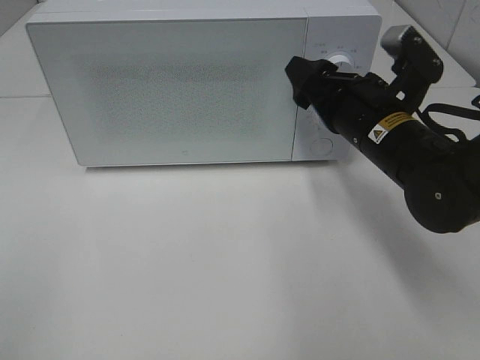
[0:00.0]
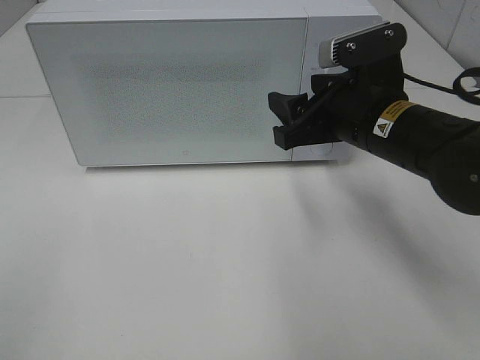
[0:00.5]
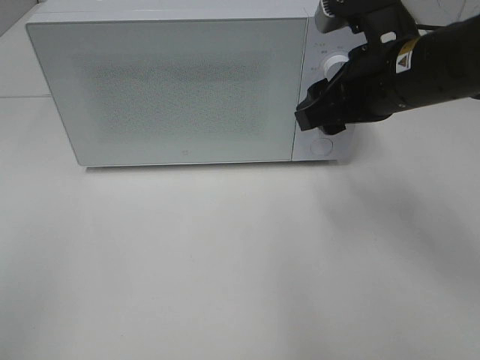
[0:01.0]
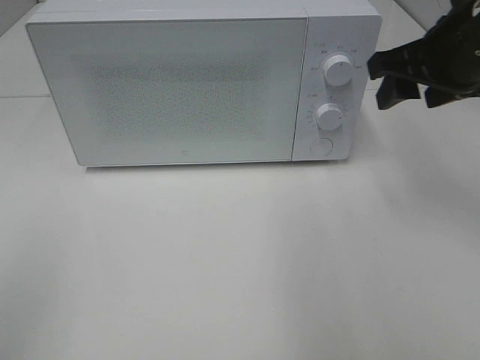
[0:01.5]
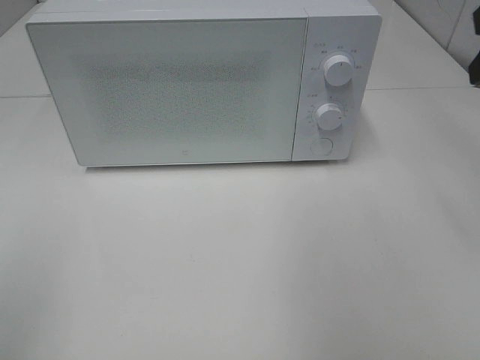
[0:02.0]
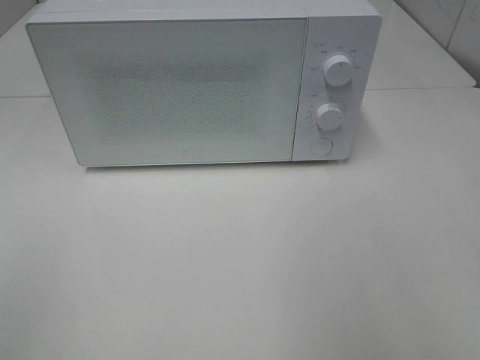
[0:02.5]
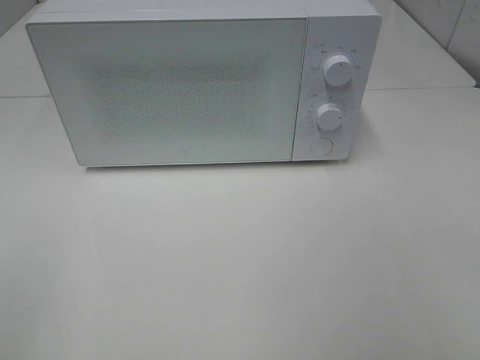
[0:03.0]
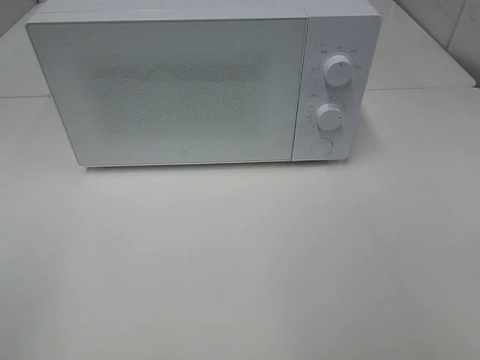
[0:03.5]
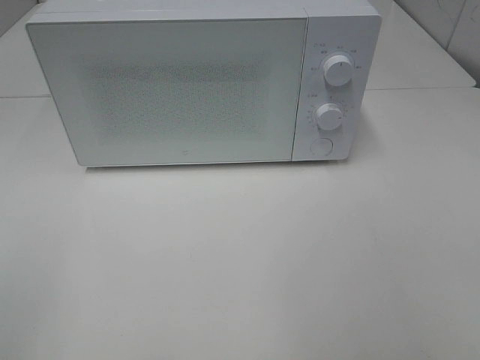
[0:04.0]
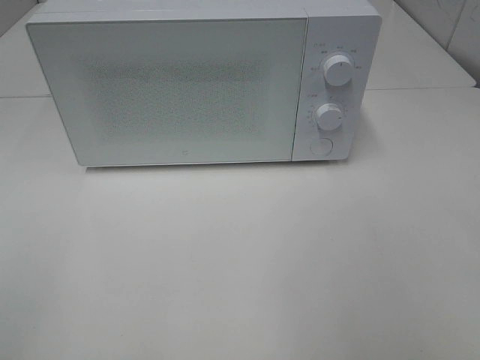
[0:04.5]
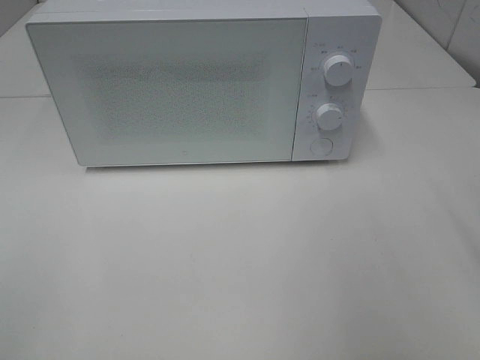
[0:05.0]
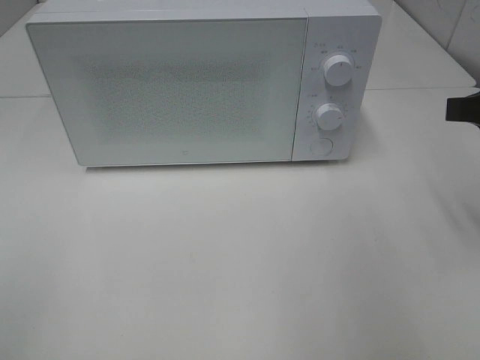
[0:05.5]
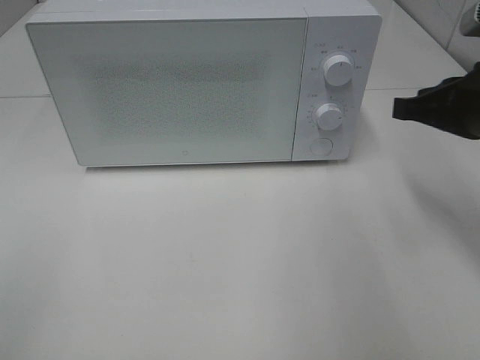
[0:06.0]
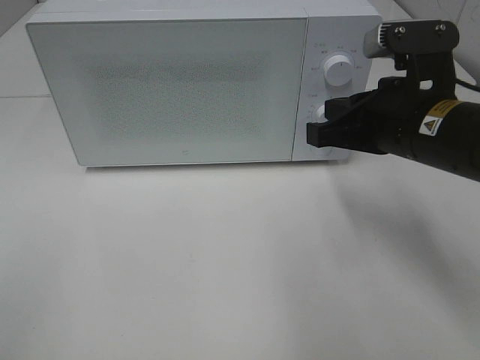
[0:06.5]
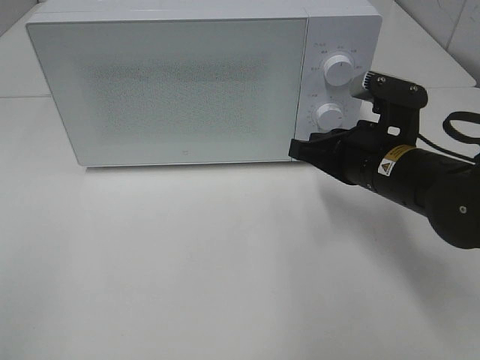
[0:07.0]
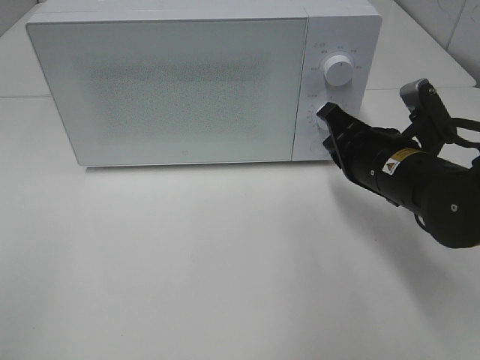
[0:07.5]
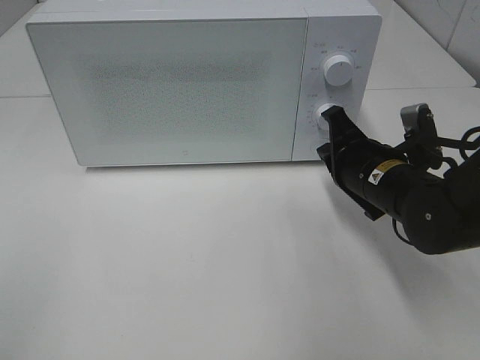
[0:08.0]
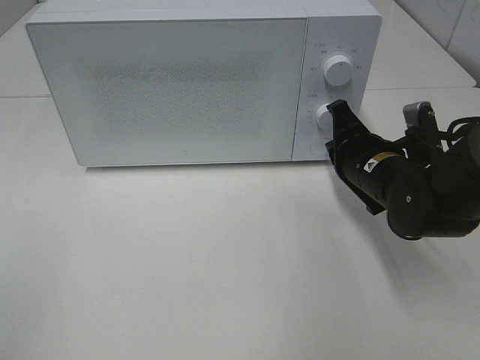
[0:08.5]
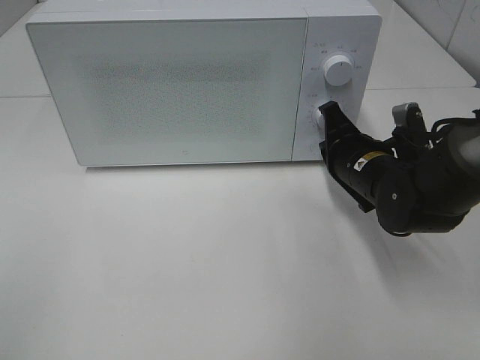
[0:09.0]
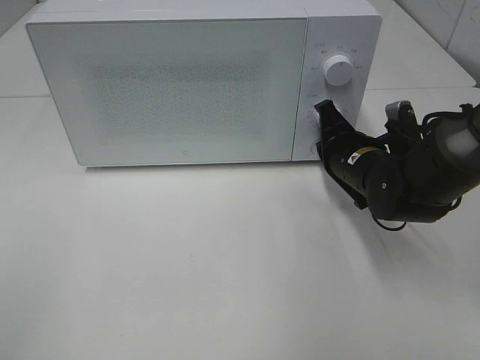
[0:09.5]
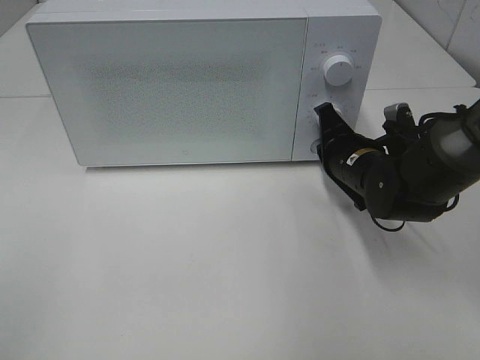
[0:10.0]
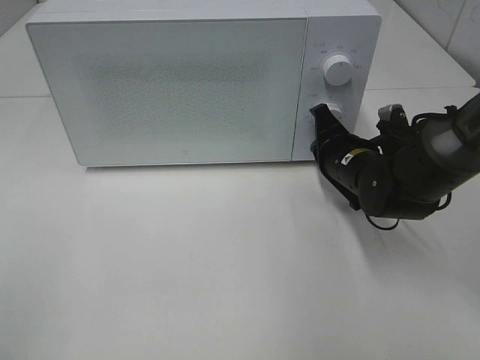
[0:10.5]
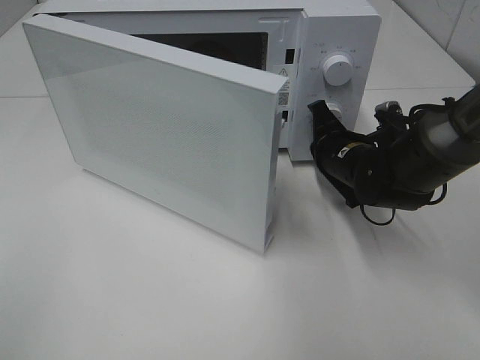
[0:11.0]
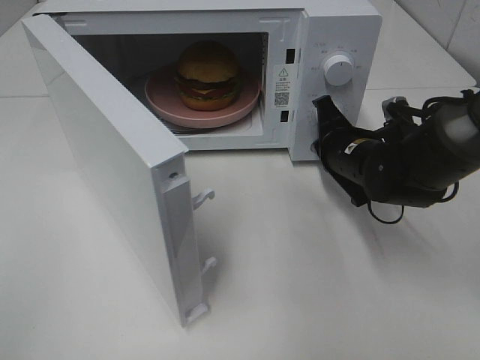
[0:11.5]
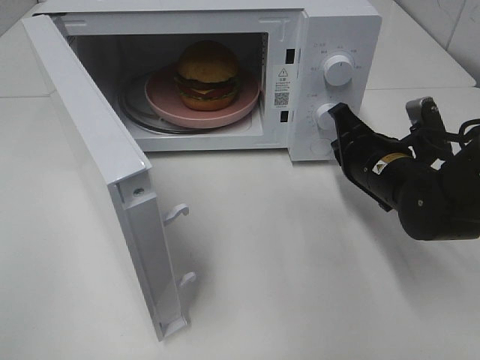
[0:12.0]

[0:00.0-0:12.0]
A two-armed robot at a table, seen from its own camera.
Task of the whole recording: Heat the burger.
Step, 0:00.0 to 0:11.5: Right hand: press the switch.
0:00.0 to 0:02.0: The right gripper shifts roughly 20 cm upward and to the right.
0:04.0 to 0:06.0: The right gripper is displaced forward by about 25 cm, and closes.
0:06.0 to 0:08.0: The right gripper is displaced downward and to the left by some 15 cm.
0:08.0 to 0:10.0: The right gripper travels forward by roughly 5 cm.

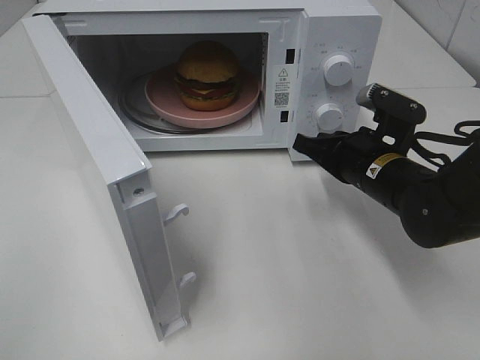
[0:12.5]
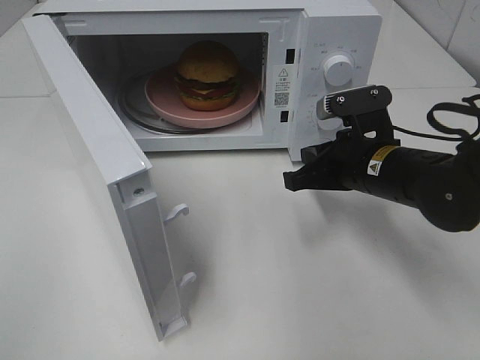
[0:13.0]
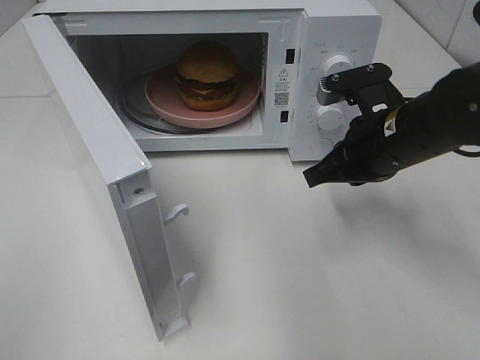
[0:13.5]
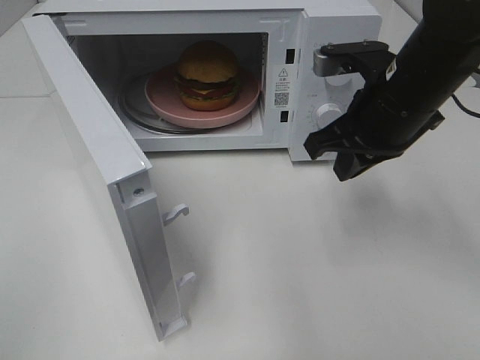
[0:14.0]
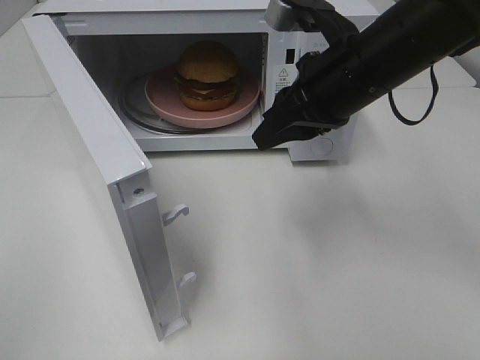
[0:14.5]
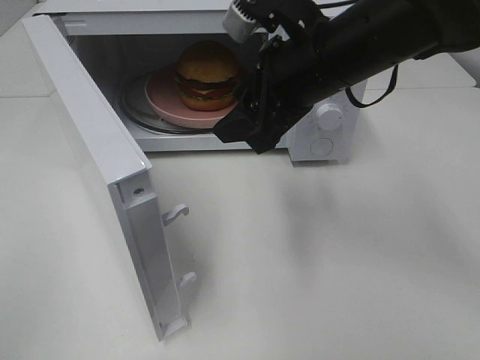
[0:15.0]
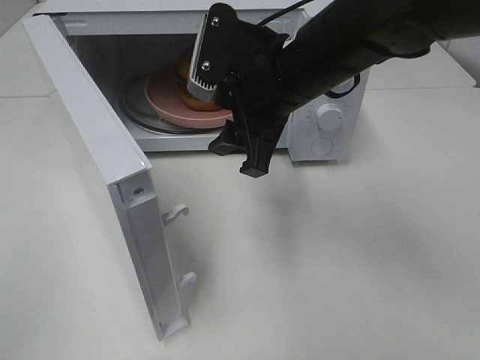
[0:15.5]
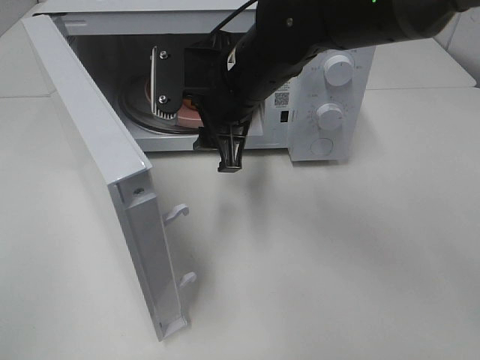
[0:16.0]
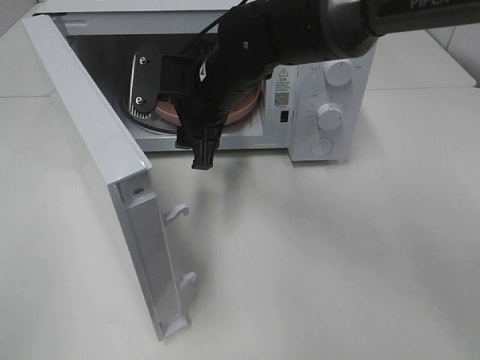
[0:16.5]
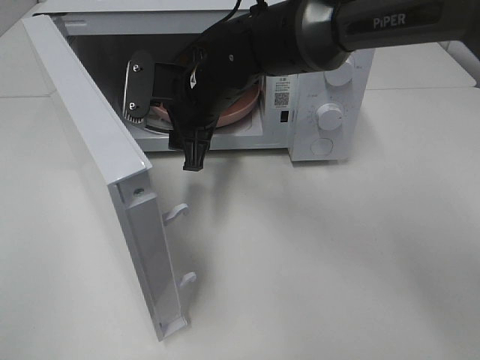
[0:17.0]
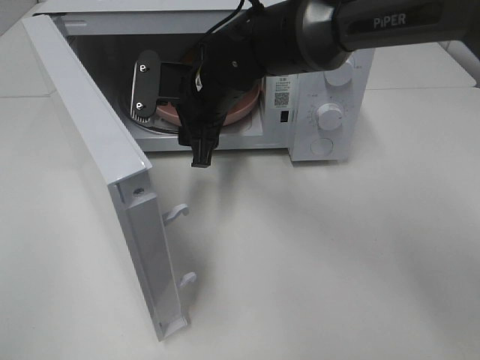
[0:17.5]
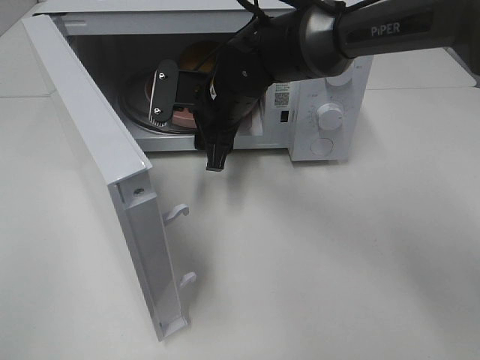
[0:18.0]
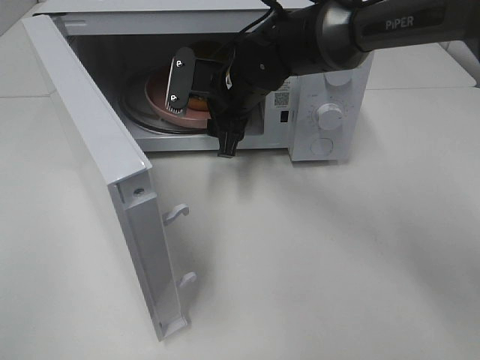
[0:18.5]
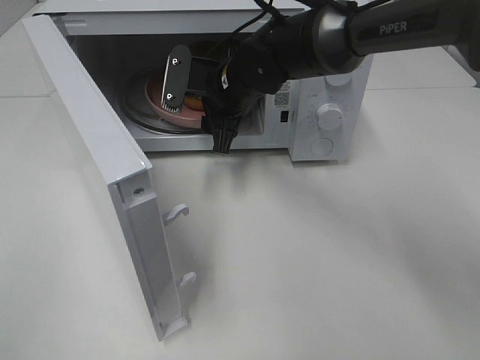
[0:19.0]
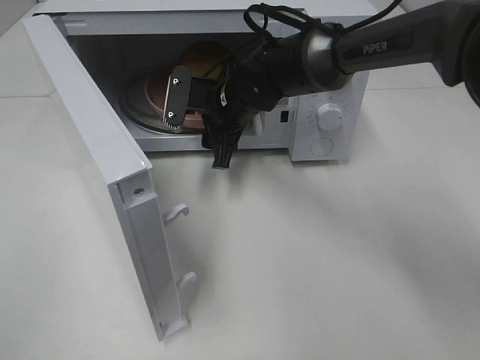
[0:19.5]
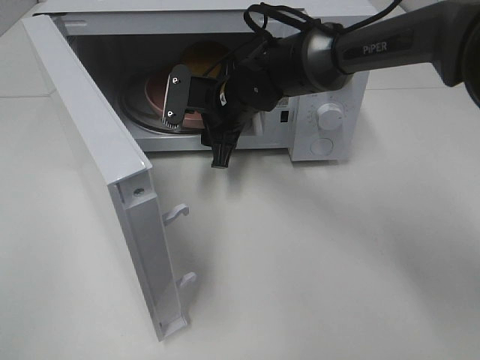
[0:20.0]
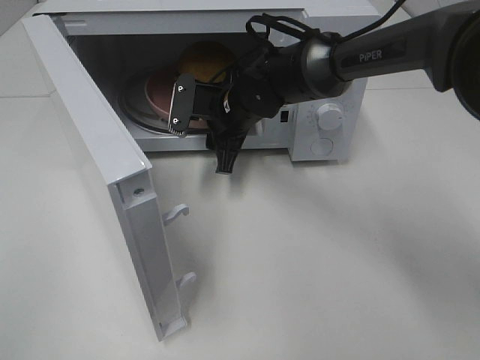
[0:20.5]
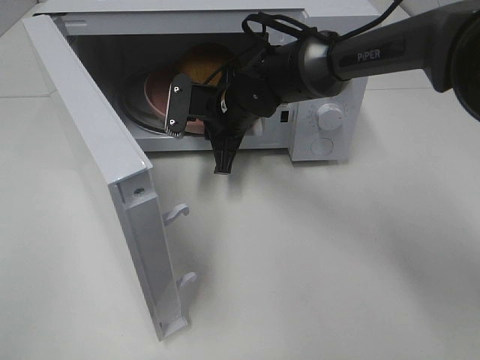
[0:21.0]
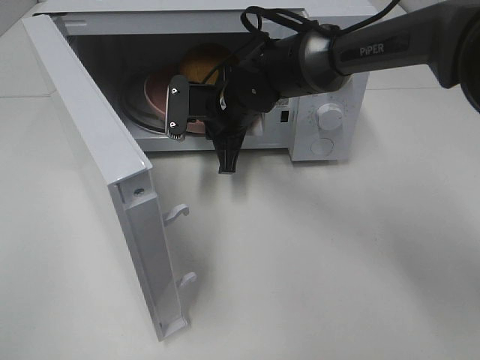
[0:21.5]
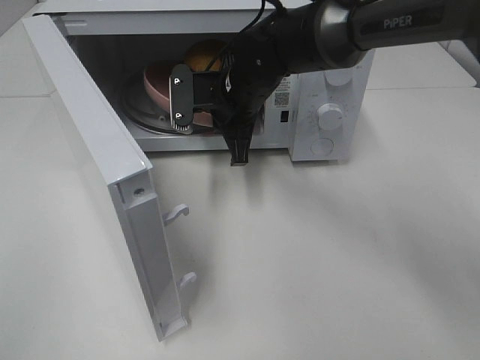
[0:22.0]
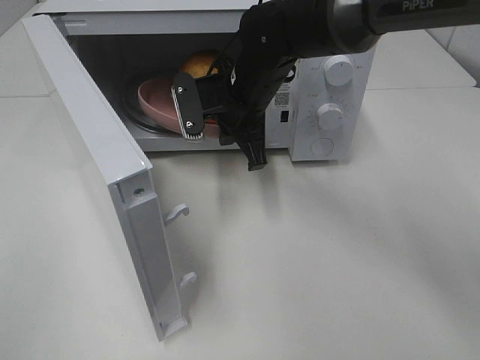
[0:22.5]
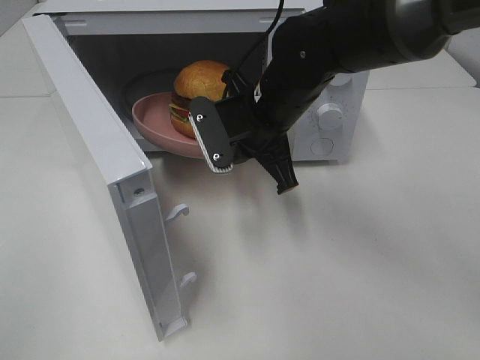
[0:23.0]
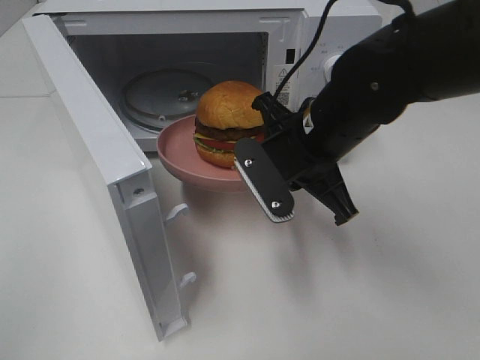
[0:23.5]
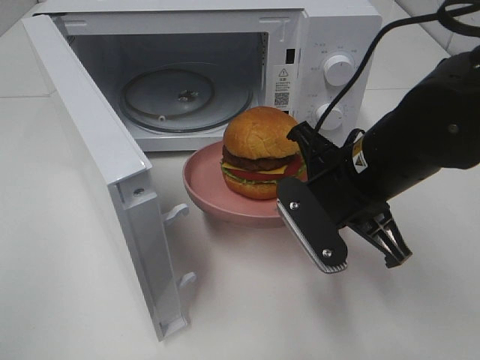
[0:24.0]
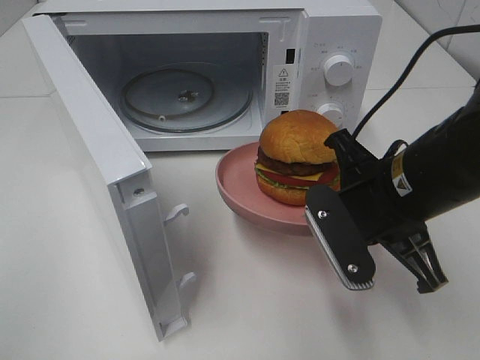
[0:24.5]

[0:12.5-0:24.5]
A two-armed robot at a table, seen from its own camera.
Task of the whole recording: Heat the burger.
Step, 0:12.5 to 0:21.5: Right hand: grab the plate with the hamburger.
0:12.5 to 0:14.5: The right gripper goes about 15 cm upward.
0:14.5 to 0:16.5: The right gripper goes some 15 cm to the left, and opens.
0:16.5 to 0:18.5: The right gripper changes place by approximately 5 cm.
0:18.5 to 0:20.5: There are only small adjustments of the grippers.
0:20.5 to 0:22.5: The right gripper travels upward by roughly 5 cm, and closes its fingers.
0:22.5 to 0:24.5: The right gripper moves backward and to the right, roughly 20 cm.

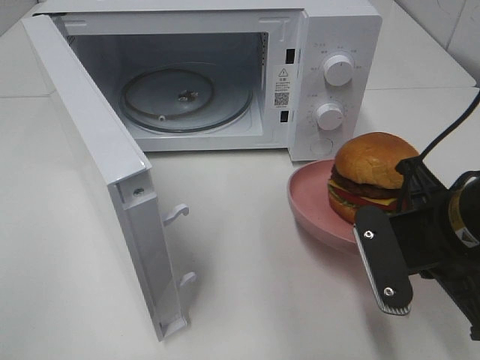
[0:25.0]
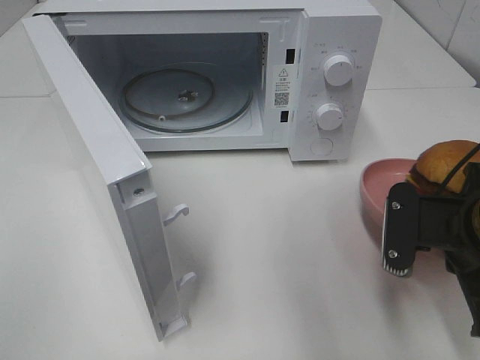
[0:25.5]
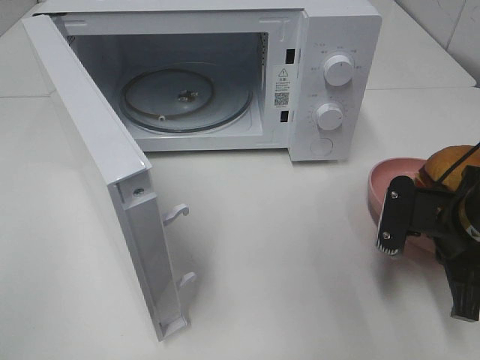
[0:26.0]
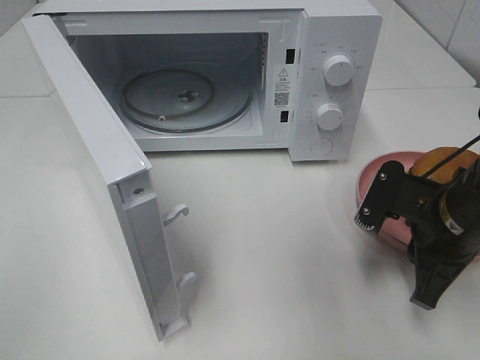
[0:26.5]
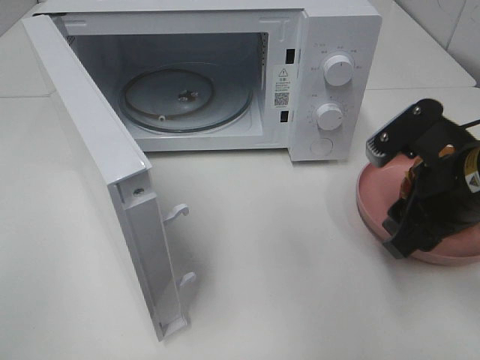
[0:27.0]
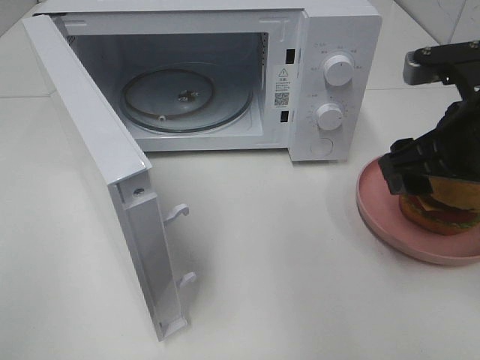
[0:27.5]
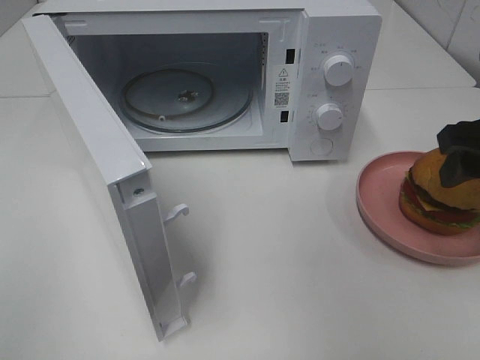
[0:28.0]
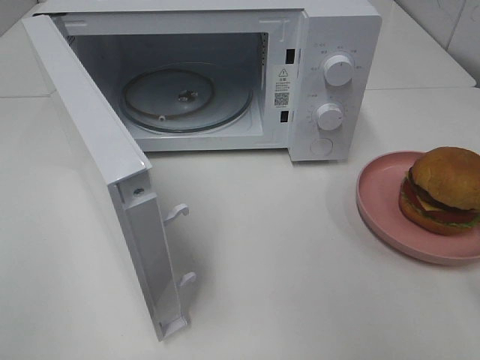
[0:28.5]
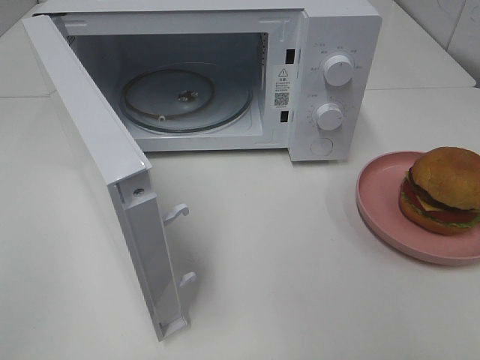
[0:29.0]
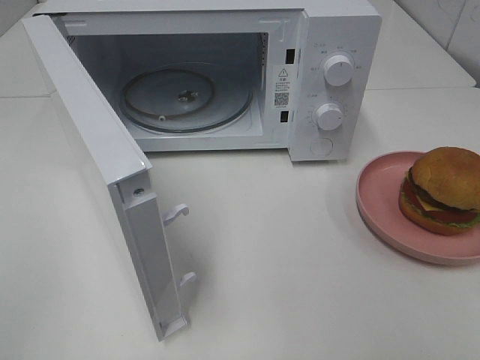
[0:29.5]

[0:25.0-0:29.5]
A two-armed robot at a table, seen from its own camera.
Task of the whole recording: Heat the burger.
0:25.0 to 0:27.0: The right gripper opens.
0:27.0 to 0:29.5: The right gripper shifts roughly 25 cm backward, upward and to the right.
